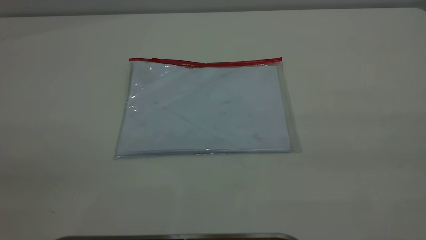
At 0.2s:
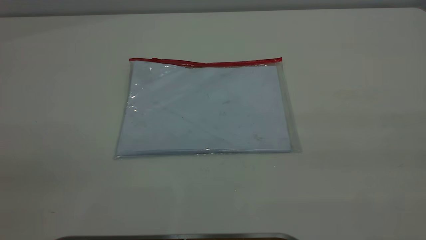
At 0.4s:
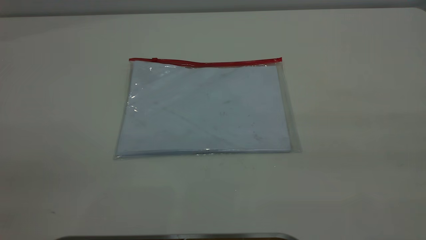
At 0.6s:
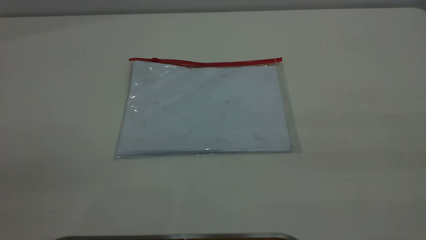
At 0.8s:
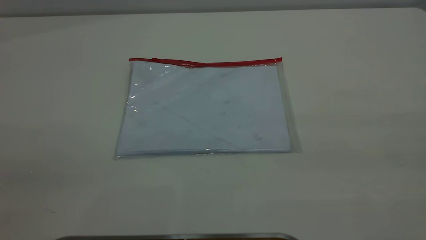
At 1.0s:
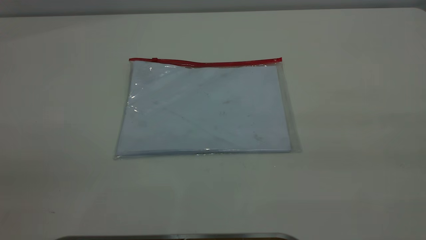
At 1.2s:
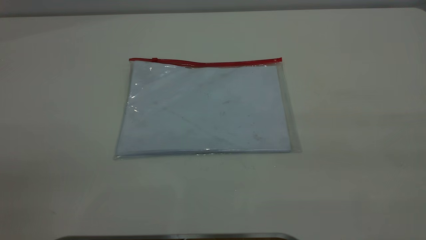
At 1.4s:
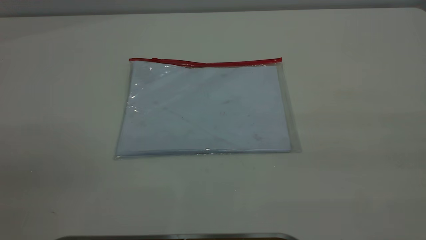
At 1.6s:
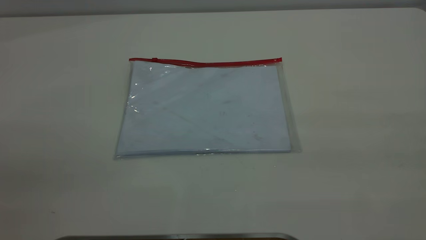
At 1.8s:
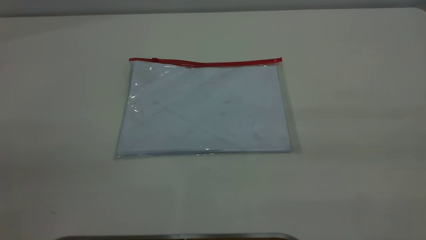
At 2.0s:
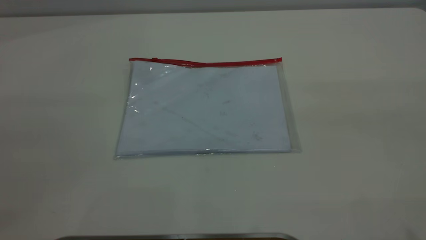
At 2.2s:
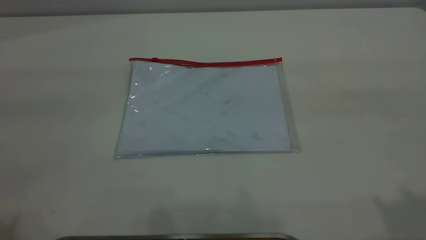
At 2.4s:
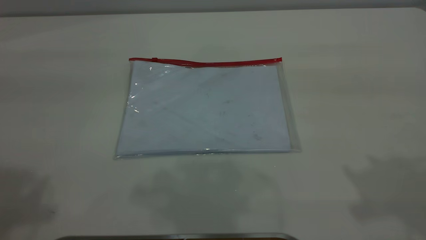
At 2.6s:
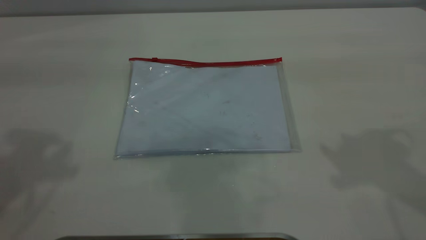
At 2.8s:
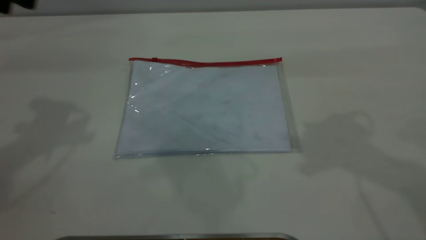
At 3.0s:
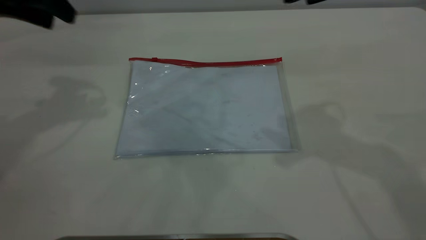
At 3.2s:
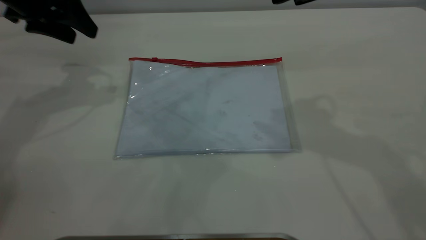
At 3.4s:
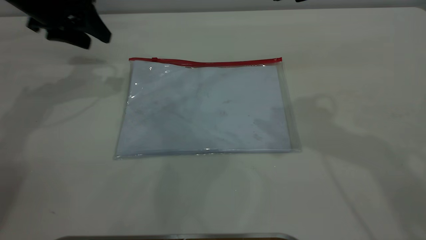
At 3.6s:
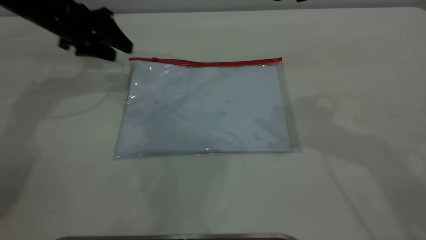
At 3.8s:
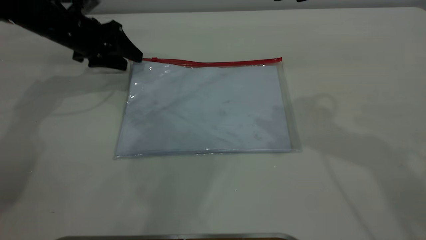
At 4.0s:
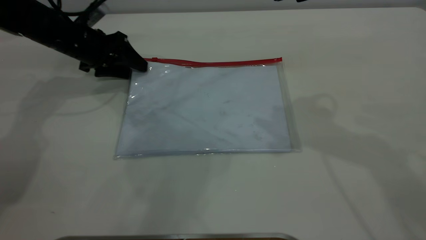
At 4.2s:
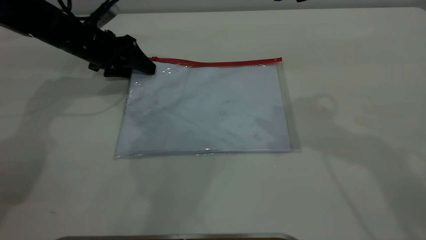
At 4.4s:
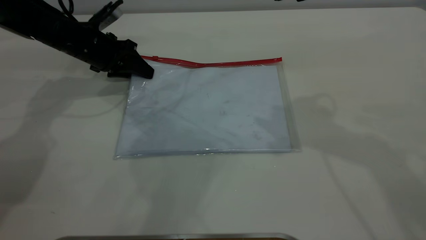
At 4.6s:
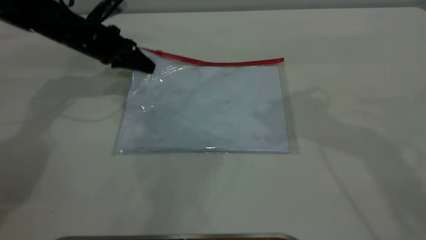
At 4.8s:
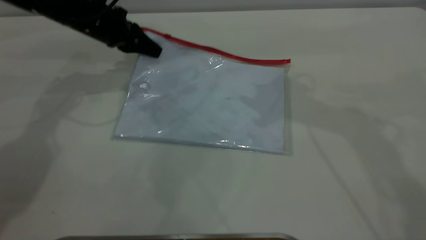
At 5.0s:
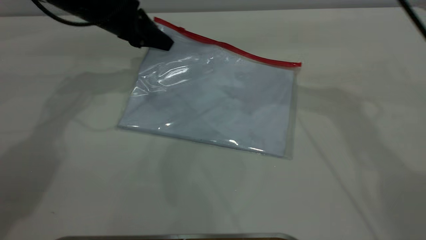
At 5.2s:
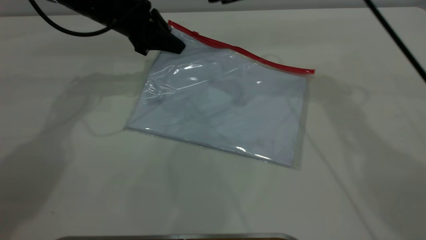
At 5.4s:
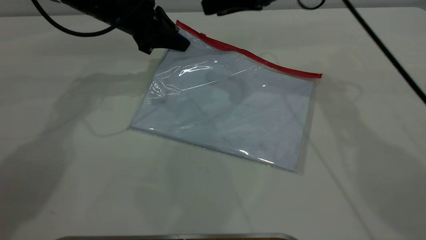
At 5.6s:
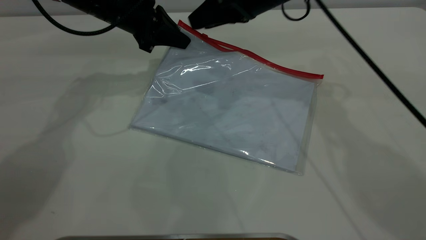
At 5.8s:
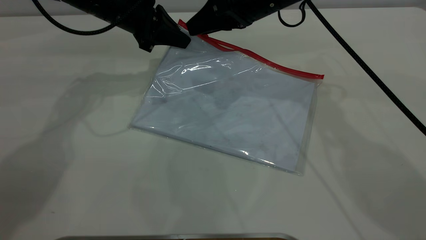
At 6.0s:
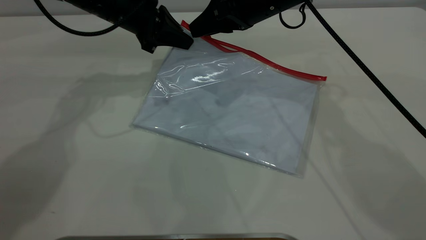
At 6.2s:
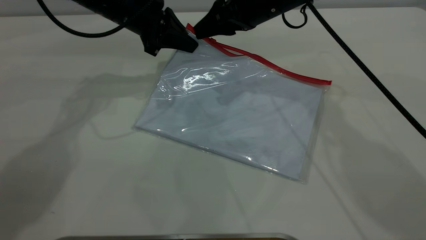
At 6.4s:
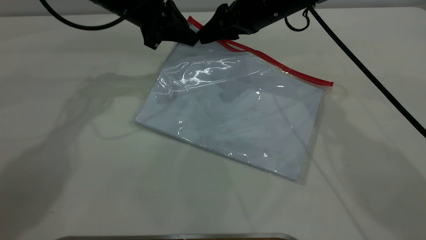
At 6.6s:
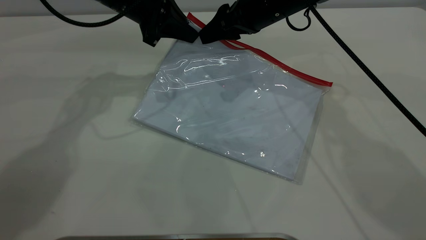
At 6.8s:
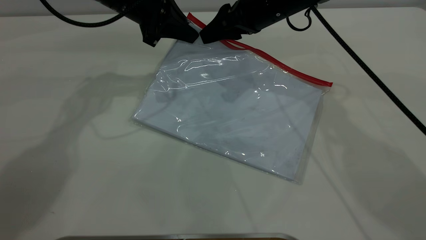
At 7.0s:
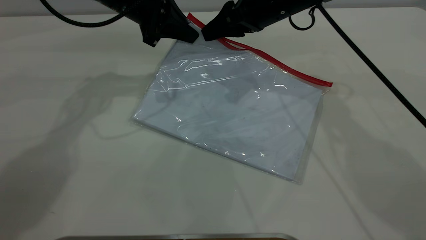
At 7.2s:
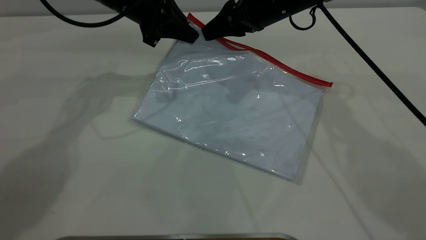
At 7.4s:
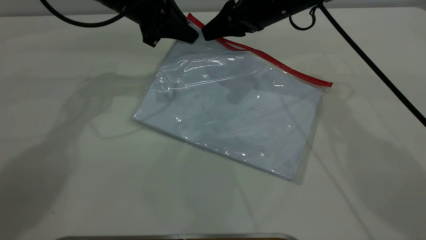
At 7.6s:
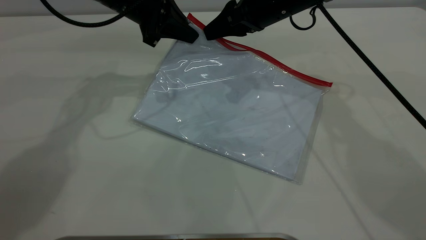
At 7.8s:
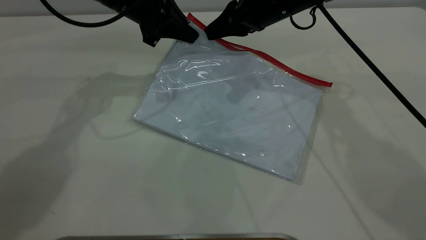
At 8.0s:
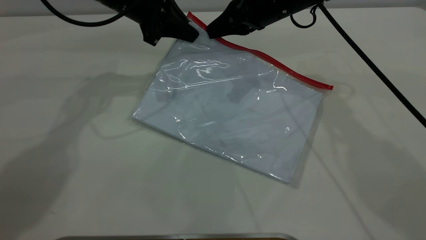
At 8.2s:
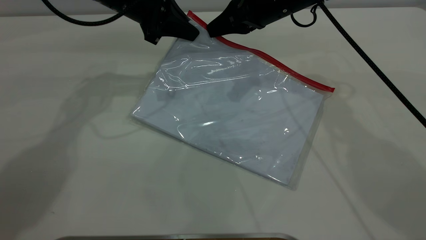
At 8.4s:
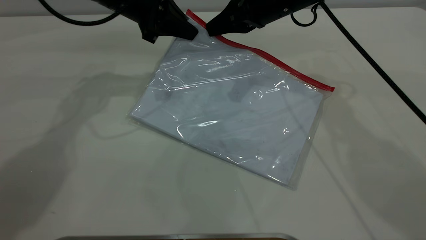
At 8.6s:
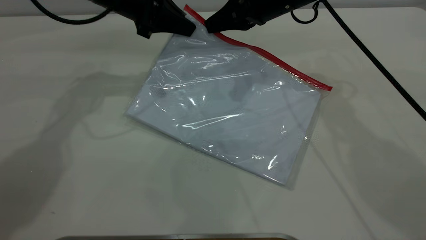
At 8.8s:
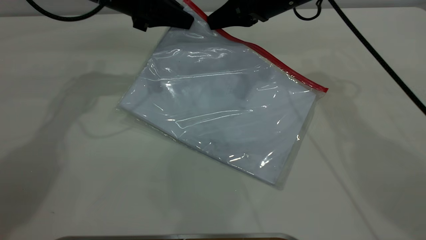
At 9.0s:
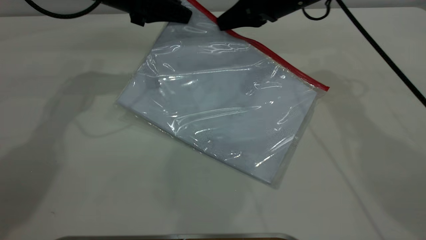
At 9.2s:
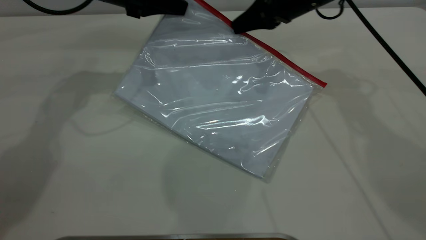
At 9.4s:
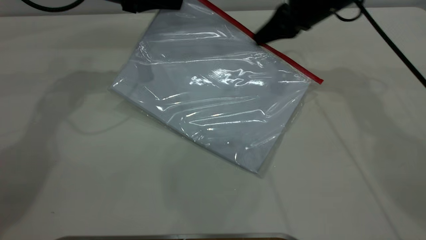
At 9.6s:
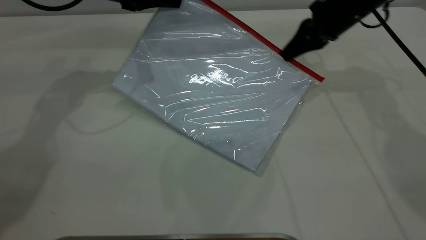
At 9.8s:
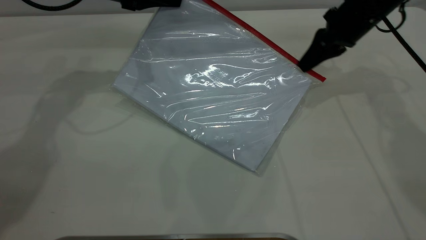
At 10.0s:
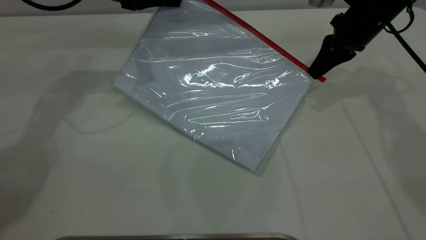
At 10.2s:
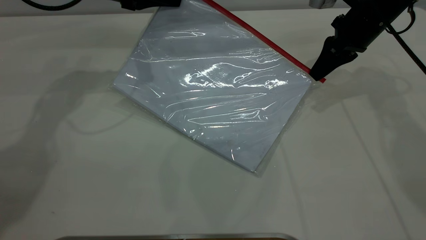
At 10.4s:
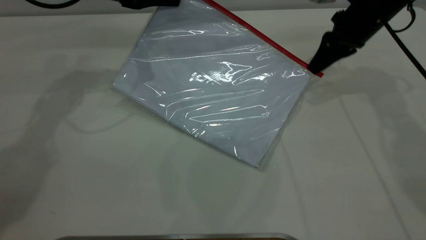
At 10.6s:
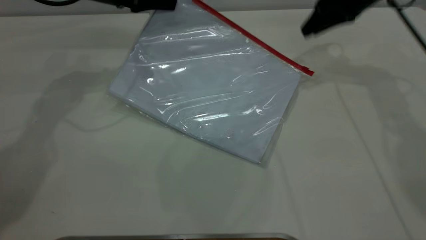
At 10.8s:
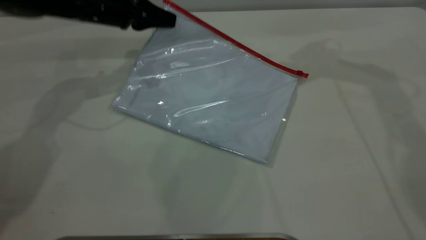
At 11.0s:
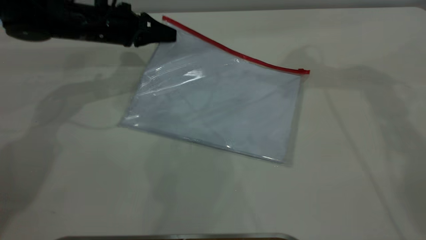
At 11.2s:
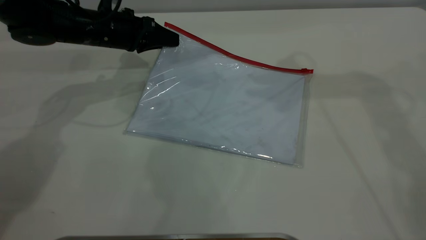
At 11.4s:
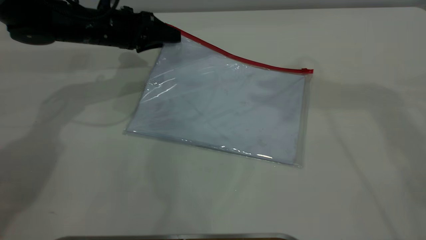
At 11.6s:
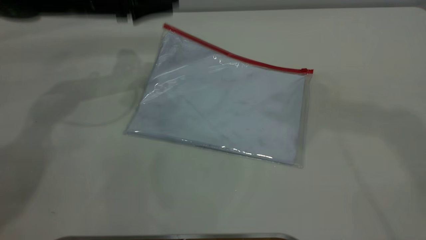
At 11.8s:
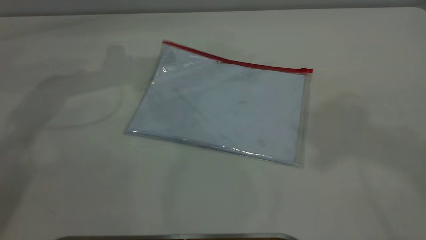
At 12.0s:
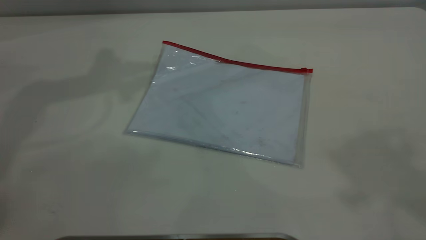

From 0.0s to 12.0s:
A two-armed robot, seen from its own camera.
Step, from 0.0s to 4.8s: Pick up the transparent plastic bag with the left gripper.
Step, from 5.0s to 10.4s: Pulling up the zipper on the transparent plastic bag with the right gripper to close it.
Step, from 10.8s to 11.6s: Place the transparent plastic bag.
From 0.0s to 1.6s: The two grippers keep their place.
From 1.6s to 3.0s: The left gripper heads forward, covering roughly 40 cm.
From 3.0s to 4.4s: The left gripper heads downward and forward, covering some 20 cm, and closes its fingers.
From 4.4s to 6.0s: The right gripper moves forward, downward and to the left, approximately 20 cm. Meanwhile the left gripper goes some 10 cm to the right and upward.
From 6.0s to 7.6s: The right gripper closes its fingers.
From 7.6s to 9.0s: The right gripper closes.
From 9.0s to 10.4s: The right gripper is displaced to the right by about 10 cm.
From 10.4s to 12.0s: The left gripper heads upward, covering about 20 cm, and opens; the right gripper goes approximately 50 cm upward and backward, and opens.
